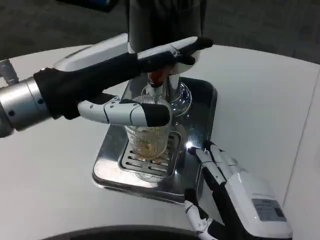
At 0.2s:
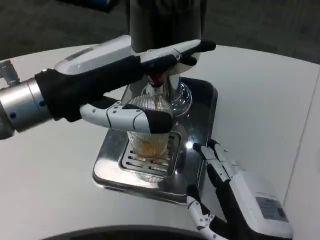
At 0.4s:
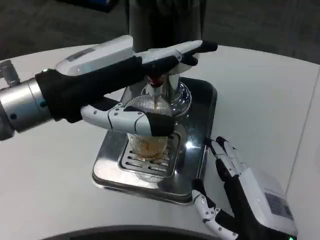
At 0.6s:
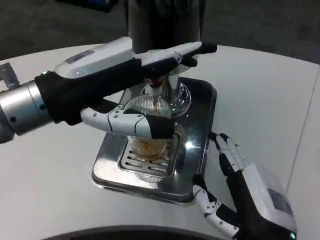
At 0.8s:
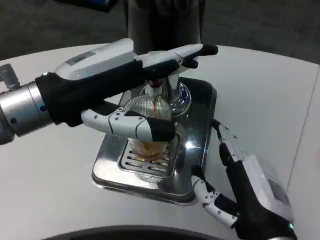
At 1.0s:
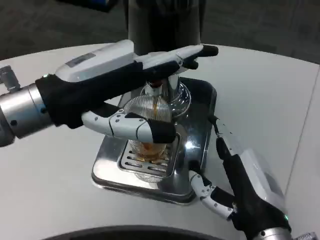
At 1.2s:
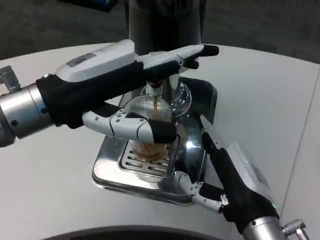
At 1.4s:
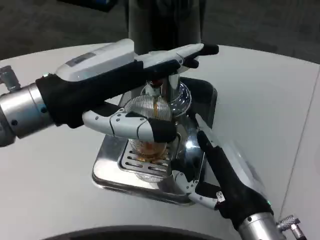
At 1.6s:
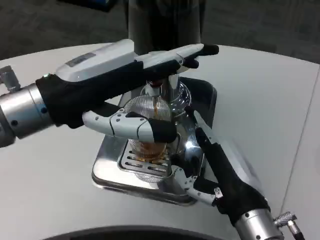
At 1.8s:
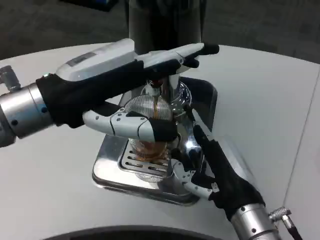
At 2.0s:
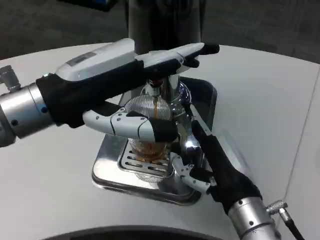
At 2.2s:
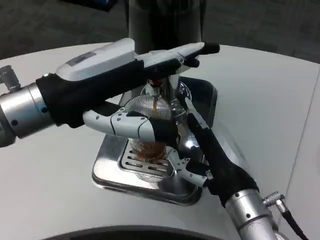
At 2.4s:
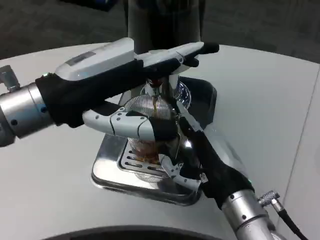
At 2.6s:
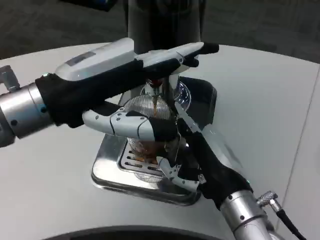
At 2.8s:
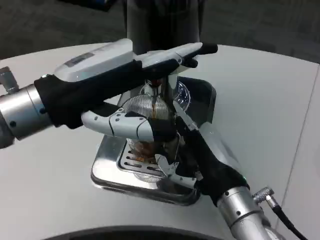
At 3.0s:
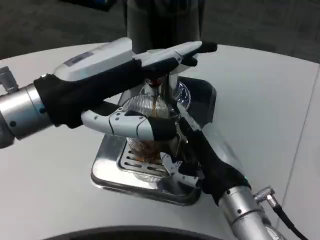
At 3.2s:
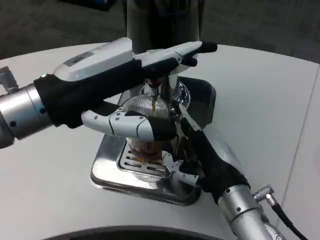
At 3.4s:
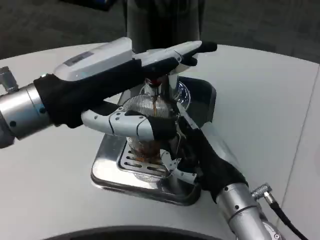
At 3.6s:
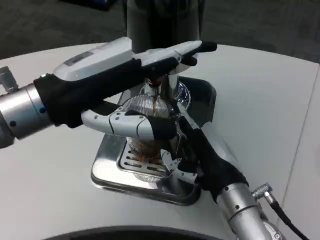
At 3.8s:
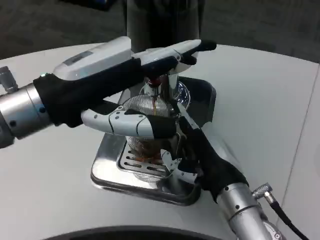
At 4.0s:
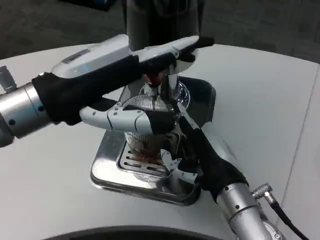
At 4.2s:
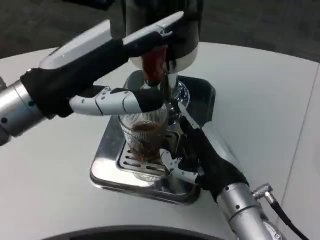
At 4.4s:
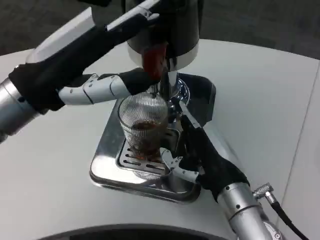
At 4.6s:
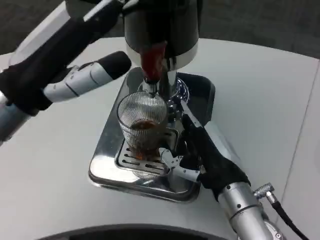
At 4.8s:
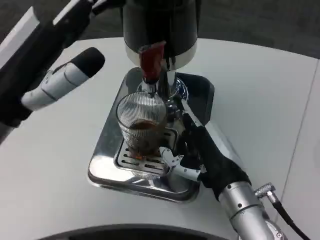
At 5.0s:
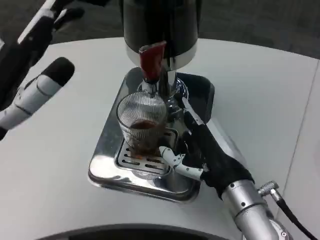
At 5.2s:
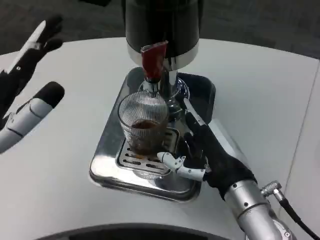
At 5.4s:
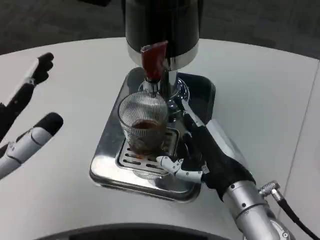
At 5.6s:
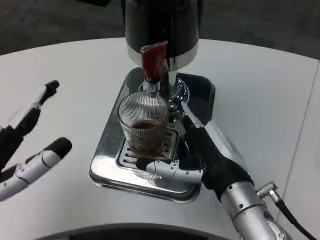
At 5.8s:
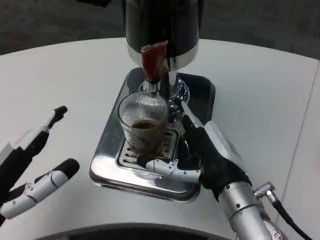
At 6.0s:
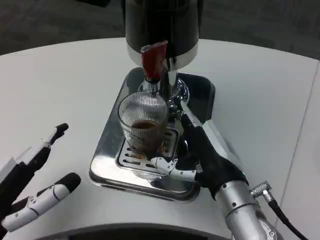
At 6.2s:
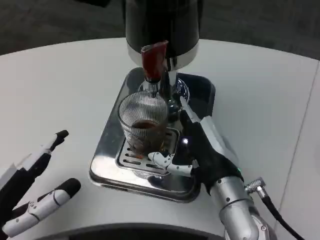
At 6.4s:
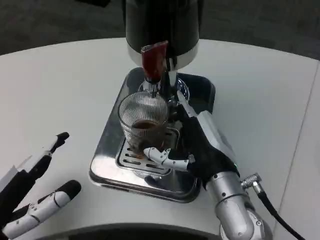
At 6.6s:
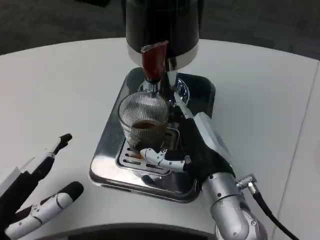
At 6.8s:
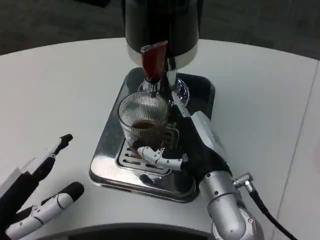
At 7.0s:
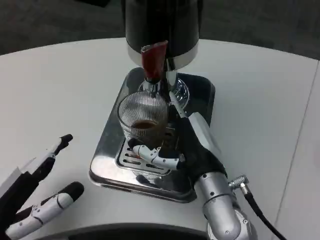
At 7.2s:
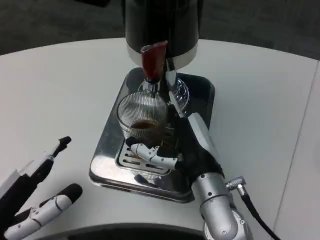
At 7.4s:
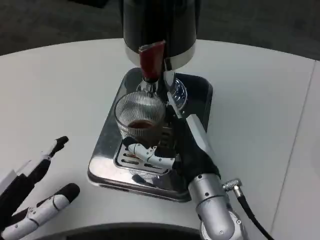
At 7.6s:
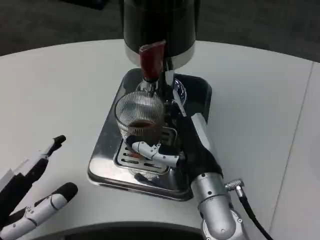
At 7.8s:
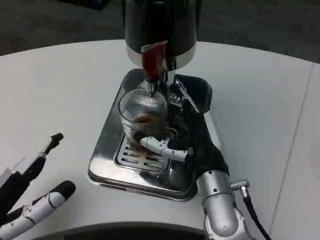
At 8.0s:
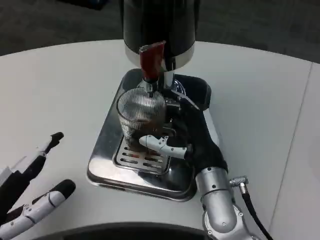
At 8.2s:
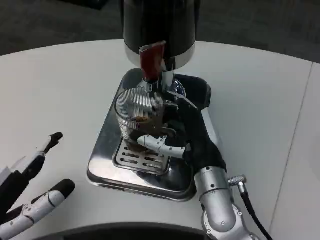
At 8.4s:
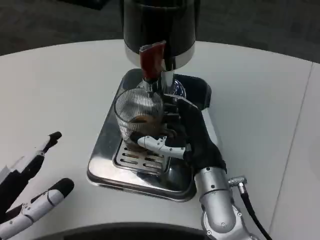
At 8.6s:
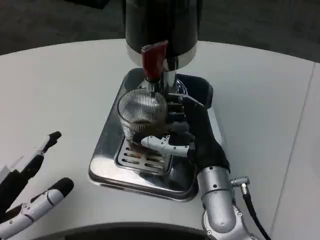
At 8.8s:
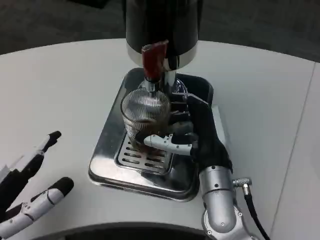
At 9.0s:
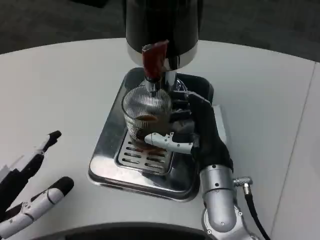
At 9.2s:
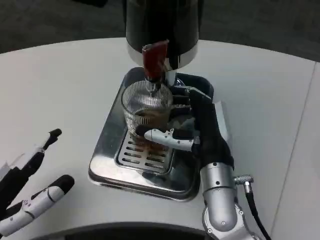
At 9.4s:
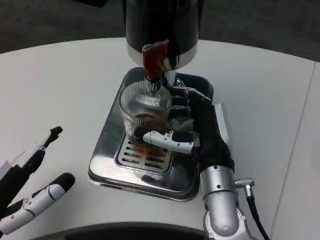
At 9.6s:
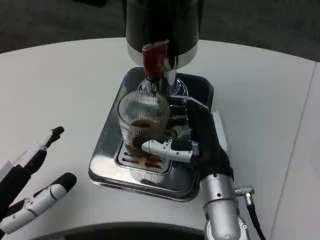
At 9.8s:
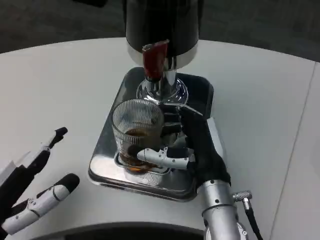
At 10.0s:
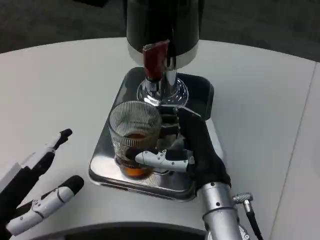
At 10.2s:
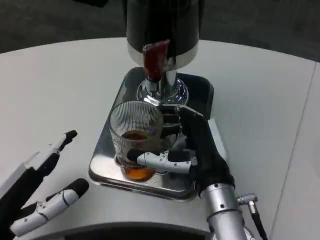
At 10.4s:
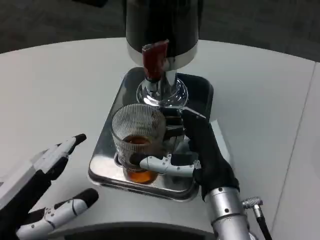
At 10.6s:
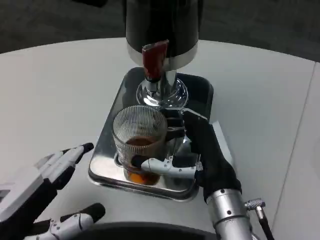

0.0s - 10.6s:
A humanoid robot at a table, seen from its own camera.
Task of the whole recording: Grasp the cup under the faucet to collect the drink, then remove the cup.
0.0s - 1.6s: The right hand moves forward, approximately 5 cm.
1.6s - 3.0s: The hands stay close to where they were, moving slightly.
4.6s - 6.0s: The left hand is displaced downward and backward by about 15 cm.
7.6s - 9.0s: The hands make only small movements.

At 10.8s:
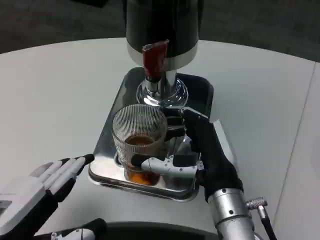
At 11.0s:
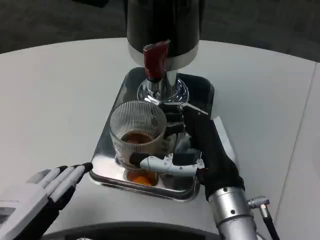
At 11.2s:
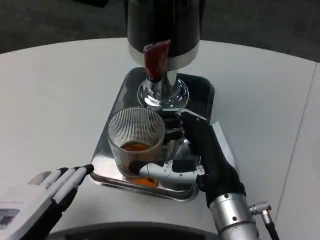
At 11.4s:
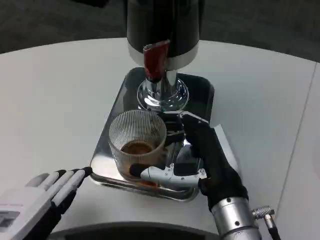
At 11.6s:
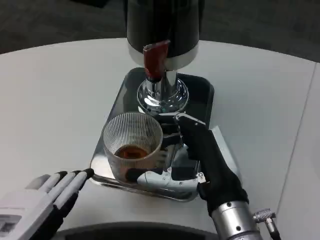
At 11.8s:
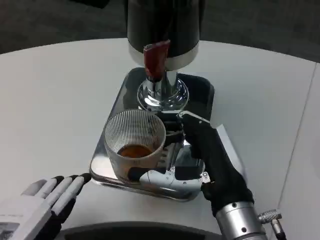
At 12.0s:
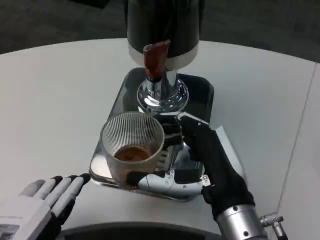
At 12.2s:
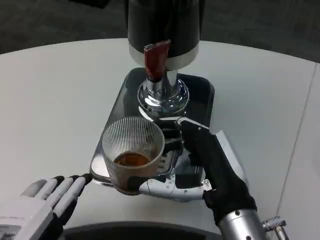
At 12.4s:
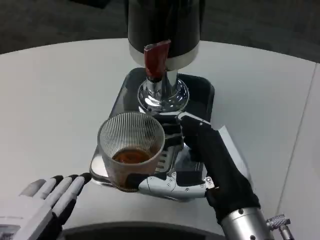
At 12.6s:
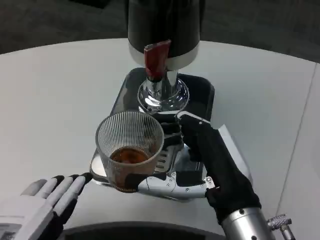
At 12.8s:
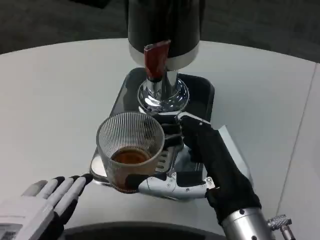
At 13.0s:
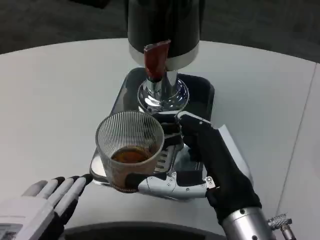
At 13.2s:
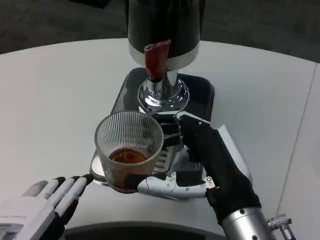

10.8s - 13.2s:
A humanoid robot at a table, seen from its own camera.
Task of the whole recording: Grasp the cup under the faucet to collect the drink, then remove the cup.
12.0s - 13.2s: The hands move only a little.

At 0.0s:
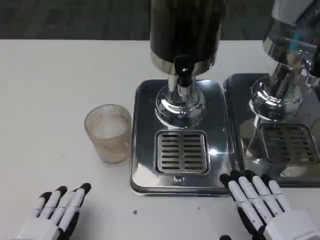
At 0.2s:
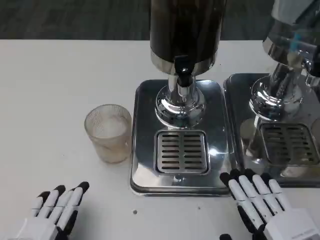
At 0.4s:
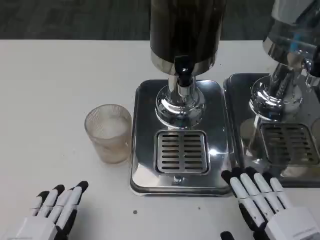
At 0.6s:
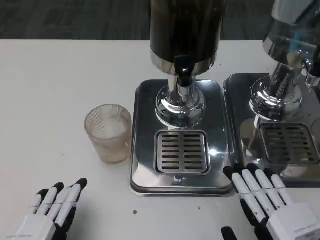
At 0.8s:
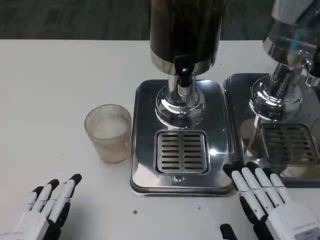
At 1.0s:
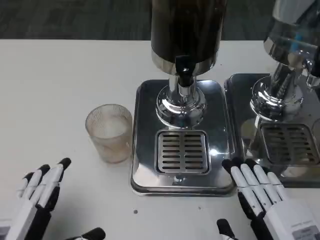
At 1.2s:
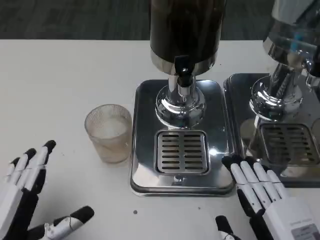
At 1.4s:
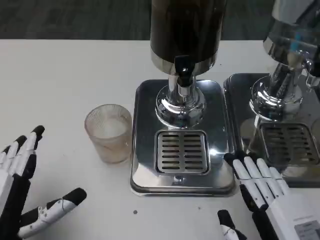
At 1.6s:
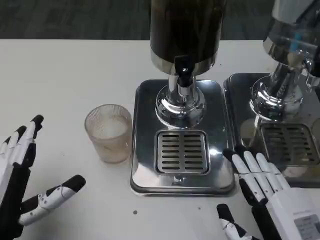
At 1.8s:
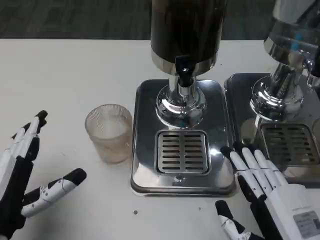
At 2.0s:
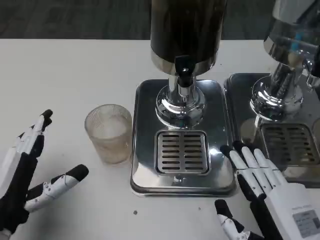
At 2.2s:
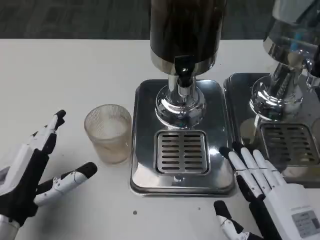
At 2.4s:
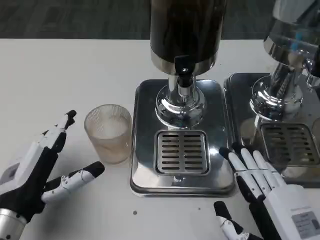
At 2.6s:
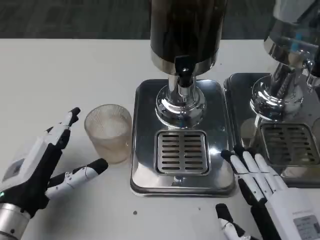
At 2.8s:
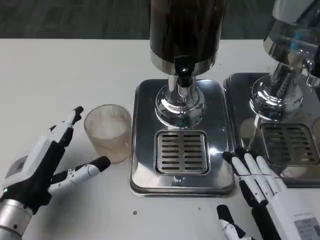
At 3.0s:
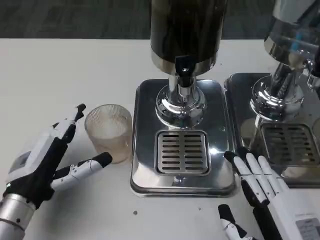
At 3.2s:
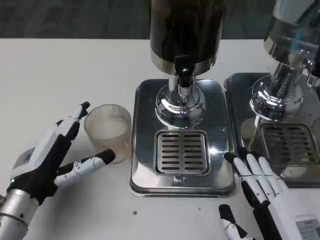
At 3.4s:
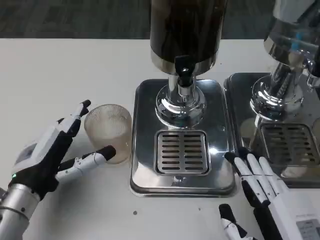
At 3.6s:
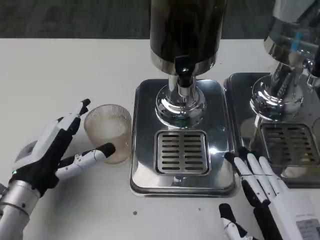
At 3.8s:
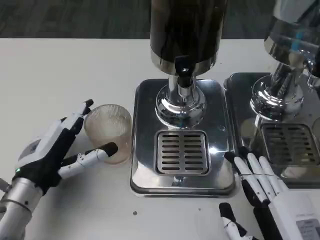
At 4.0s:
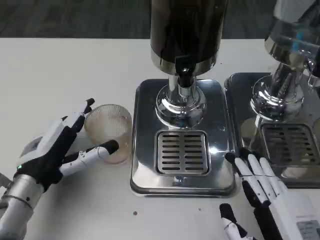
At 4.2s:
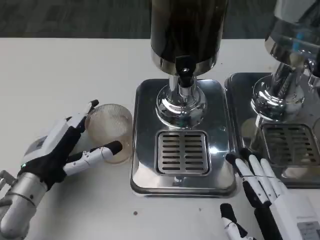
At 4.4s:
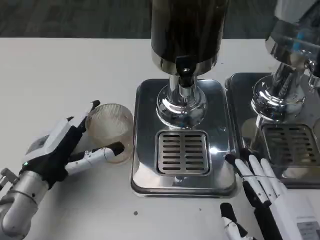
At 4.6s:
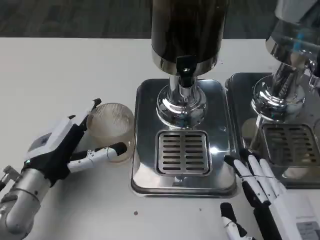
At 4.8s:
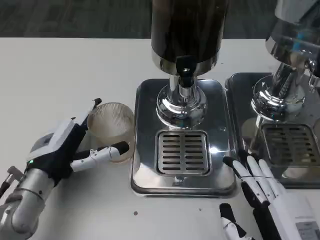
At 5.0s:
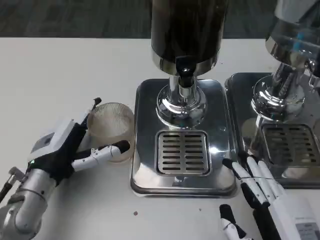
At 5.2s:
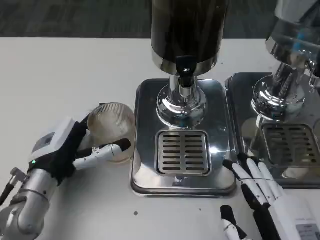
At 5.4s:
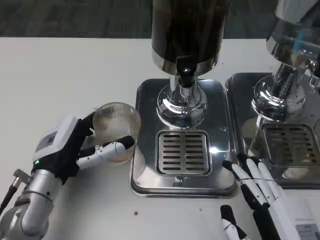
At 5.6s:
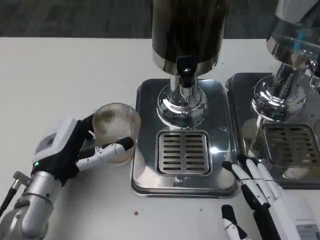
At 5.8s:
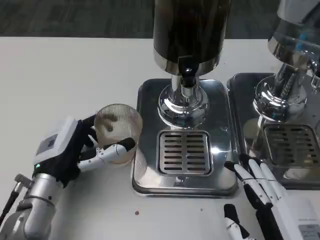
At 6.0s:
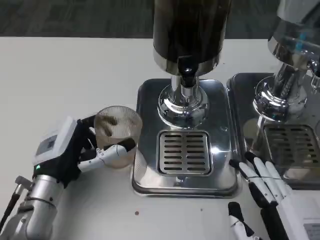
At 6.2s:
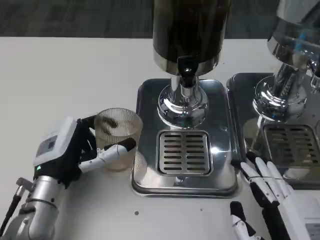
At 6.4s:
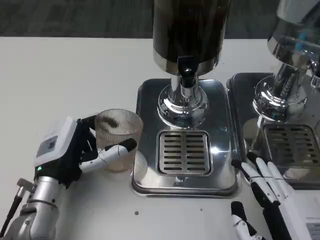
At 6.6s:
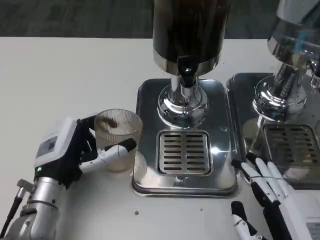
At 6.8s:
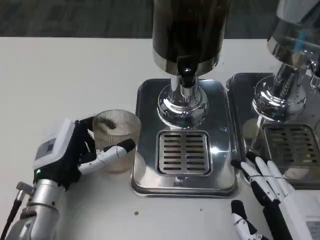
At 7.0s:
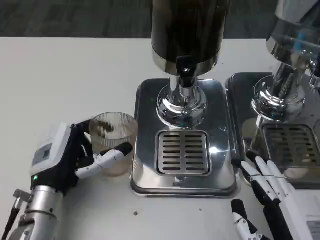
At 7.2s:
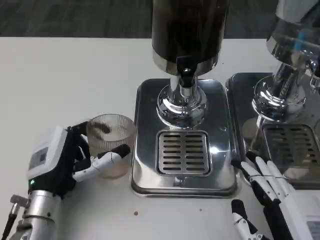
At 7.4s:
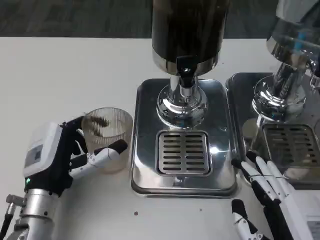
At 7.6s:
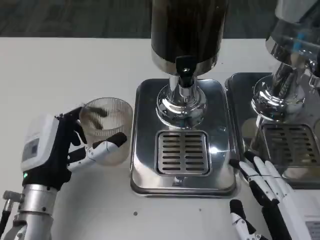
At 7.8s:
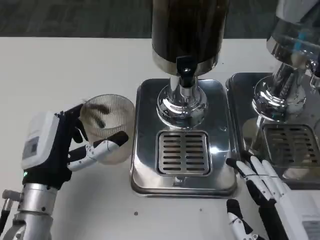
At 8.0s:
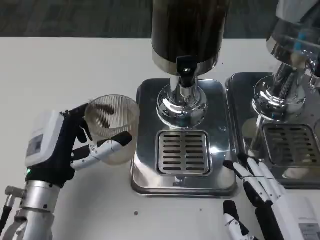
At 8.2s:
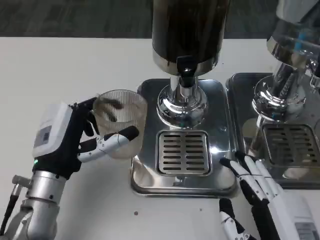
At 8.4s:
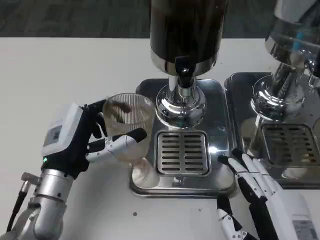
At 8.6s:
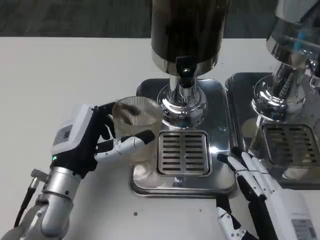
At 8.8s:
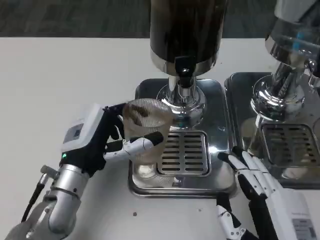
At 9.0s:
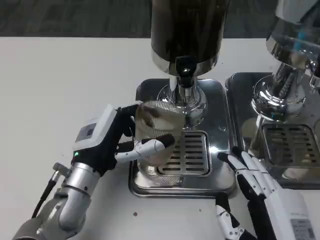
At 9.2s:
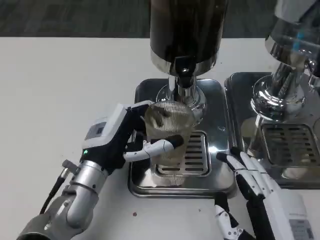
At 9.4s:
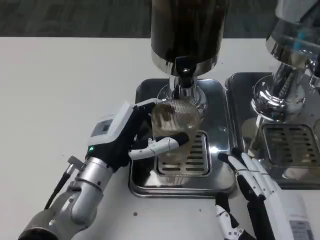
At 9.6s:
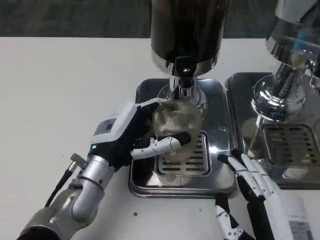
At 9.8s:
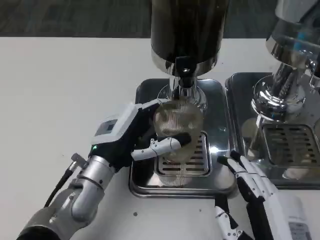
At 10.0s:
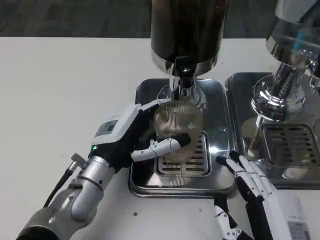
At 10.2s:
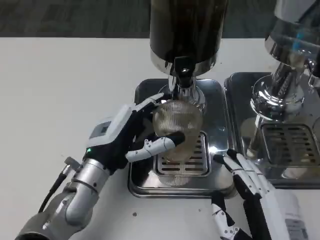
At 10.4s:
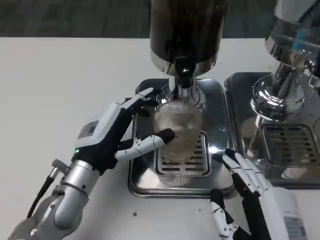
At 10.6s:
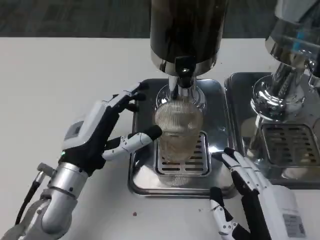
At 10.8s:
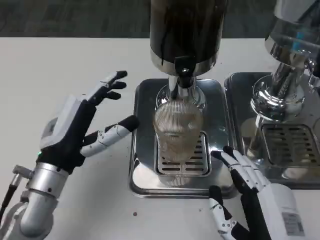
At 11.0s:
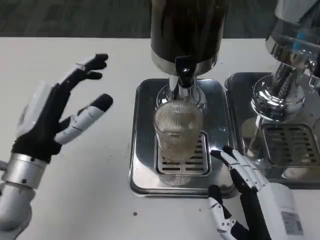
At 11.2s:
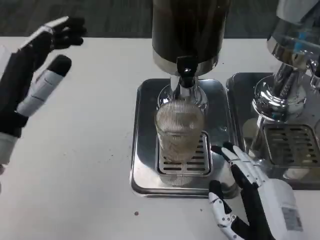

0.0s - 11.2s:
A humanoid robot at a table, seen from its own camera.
Task of the whole recording: Grasp the cup under the faucet to collect the drink, then remove the cup.
0.0s - 1.6s: The left hand moves forward, roughly 5 cm.
1.6s - 3.2s: The left hand is displaced forward by about 10 cm.
3.2s - 4.8s: The hands make only small movements.
6.4s - 8.0s: The hands stay close to where they were, moving slightly.
8.0s - 9.6s: The left hand is displaced to the right by roughly 5 cm.
9.6s - 11.2s: The left hand moves to the left and upward, some 15 cm.
